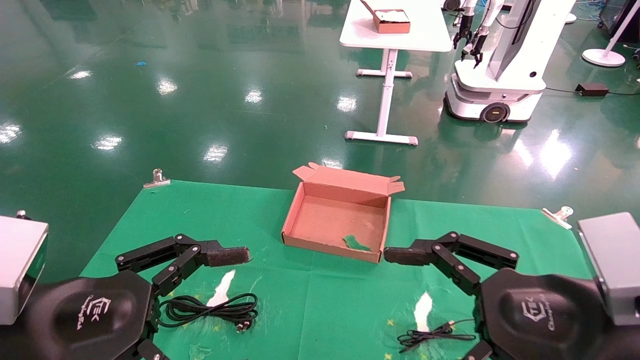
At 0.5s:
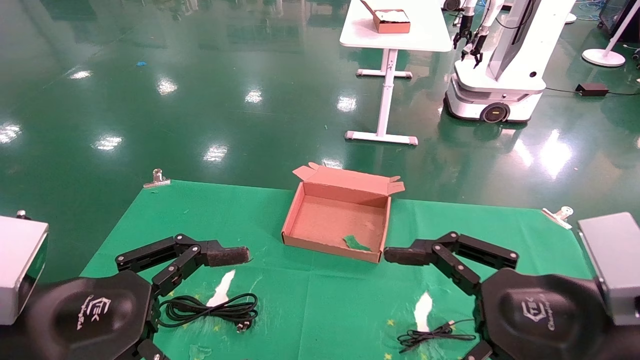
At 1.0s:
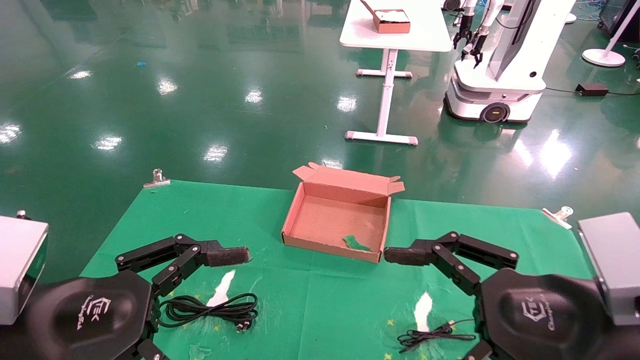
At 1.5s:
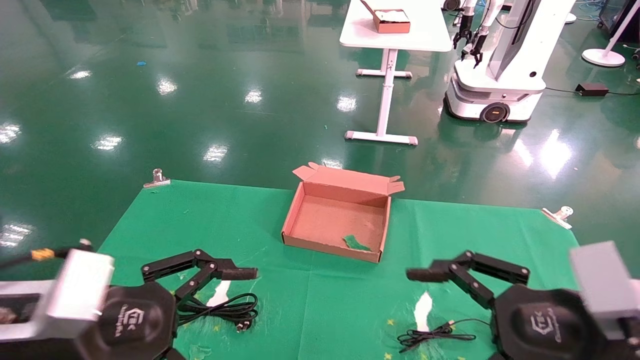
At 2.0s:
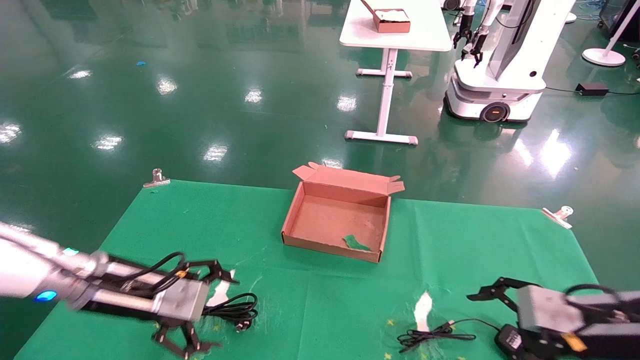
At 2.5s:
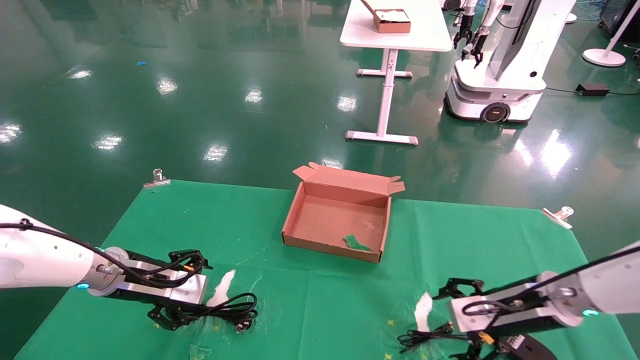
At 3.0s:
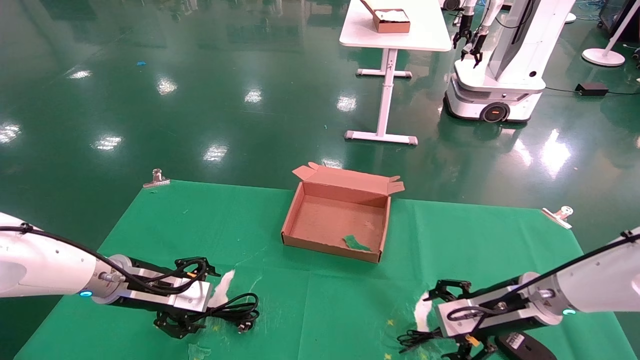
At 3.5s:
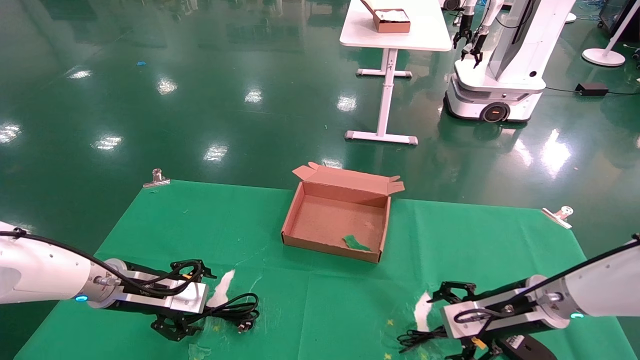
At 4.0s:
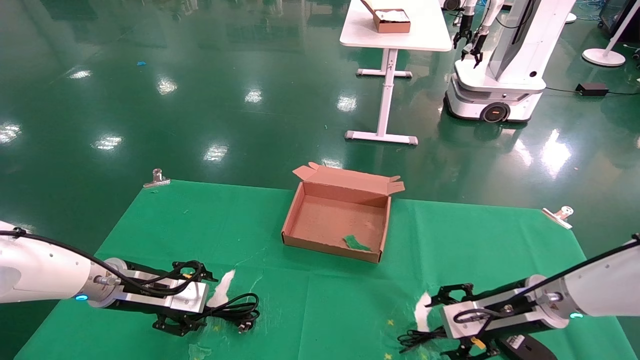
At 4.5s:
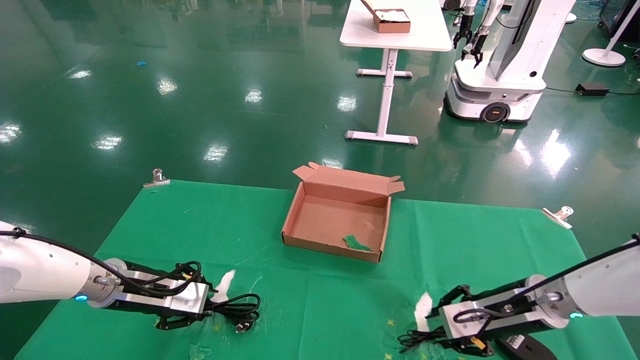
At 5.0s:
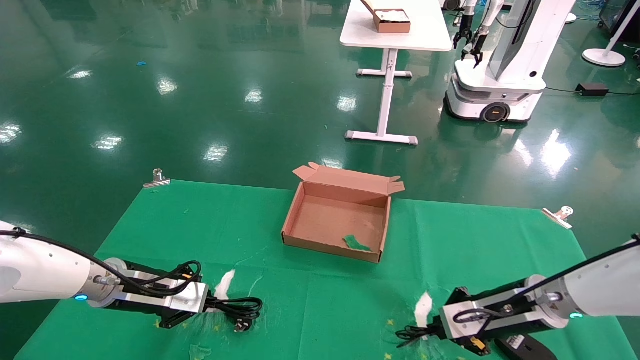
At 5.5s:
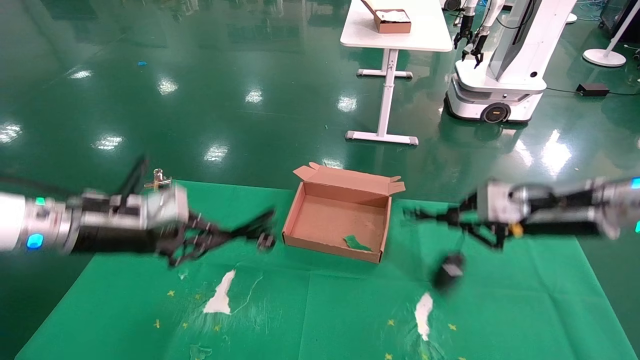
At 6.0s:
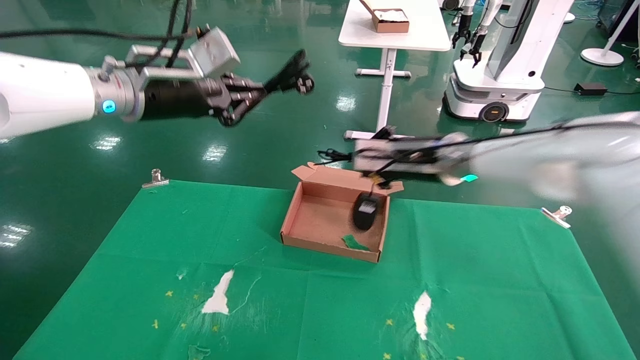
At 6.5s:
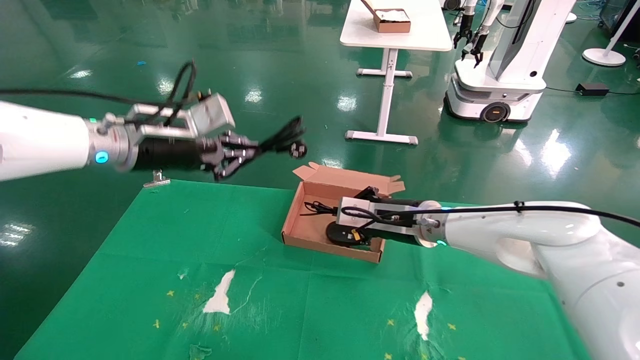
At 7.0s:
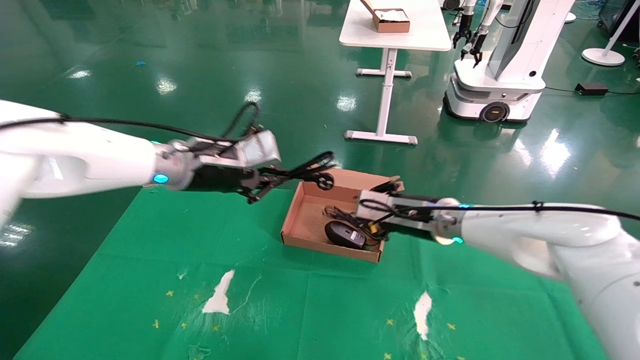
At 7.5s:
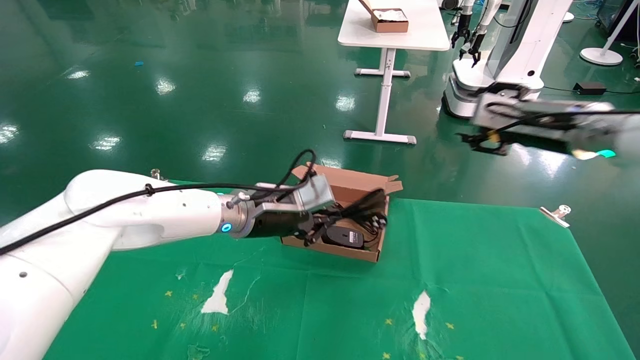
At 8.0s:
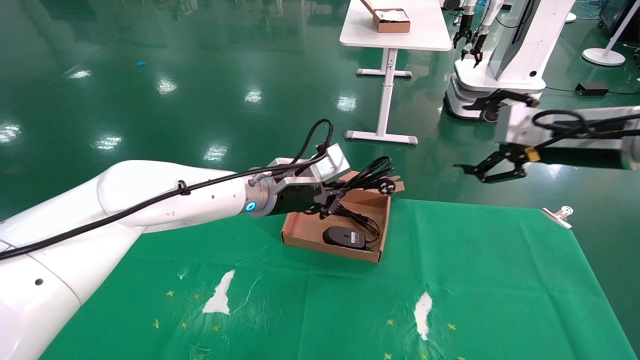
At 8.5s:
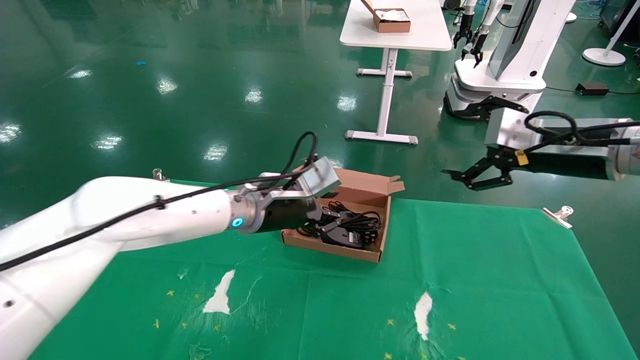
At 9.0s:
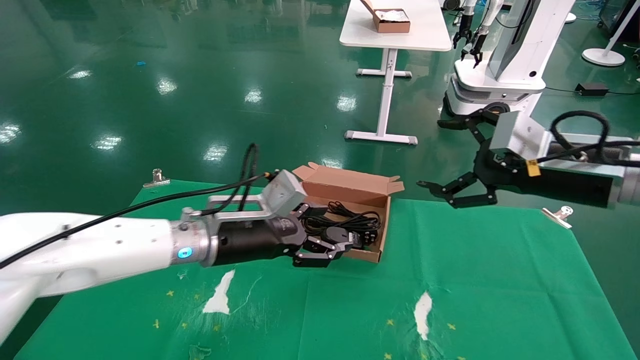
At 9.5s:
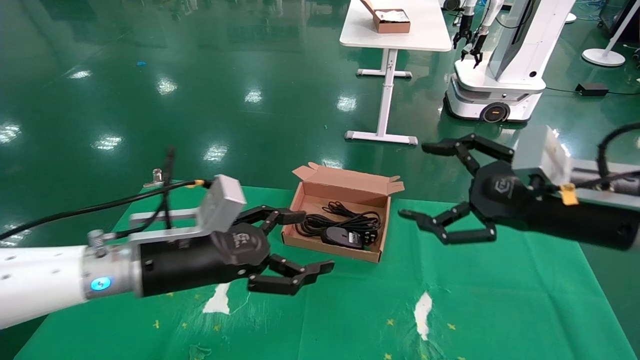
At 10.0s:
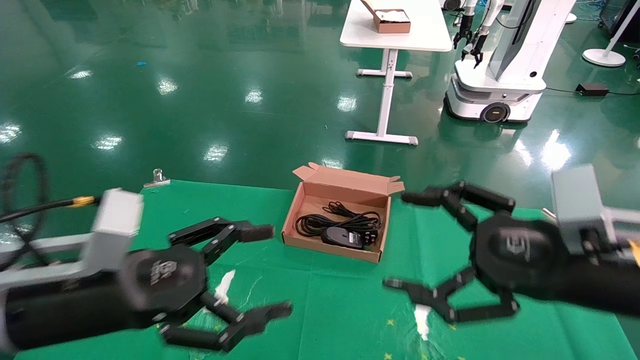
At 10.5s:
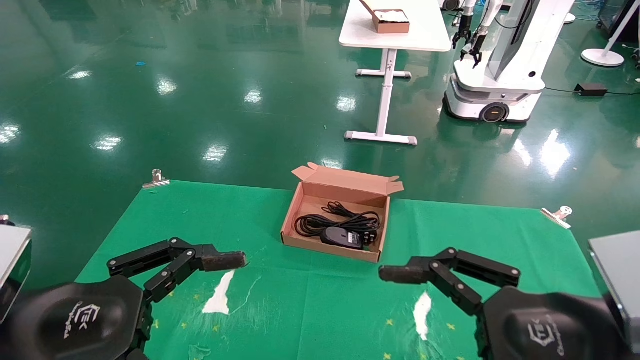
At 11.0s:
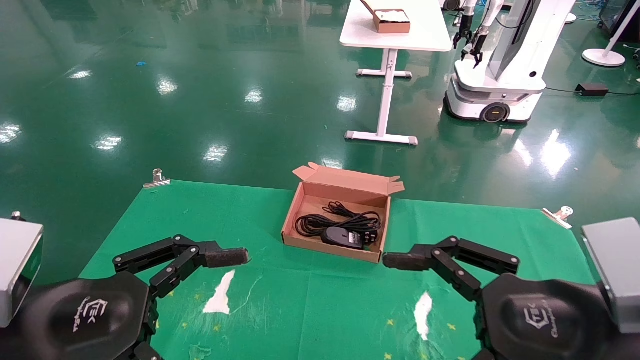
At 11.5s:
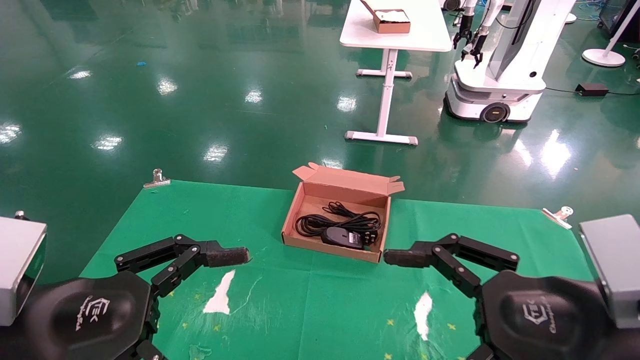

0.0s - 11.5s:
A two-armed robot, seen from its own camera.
Step, 2.0s - 5.0s: Grab and lift both the mouse and power cord from the accessory packaging area at the same time.
Step, 5.5s - 9.0s: Place the mouse and power cord into the box.
0.0s - 2.0s: The right gripper heads forward, to the right and downward, covering approximately 15 cm, while the left gripper shifts roughly 20 cm forward.
2.0s - 4.0s: The right gripper is displaced forward by about 10 cm. The left gripper heads forward, covering roughly 5 cm.
4.0s - 6.0s: The left gripper goes approximately 25 cm upward, and closes its fingers; the right gripper goes approximately 20 cm upward and to the left, and closes its fingers.
6.0s - 7.5s: The left gripper heads downward and to the right, covering roughly 20 cm, while the right gripper travels to the right by approximately 15 cm, and opens its fingers.
7.5s - 9.5s: The left gripper travels backward and to the left by about 15 cm, and opens up. Meanwhile the right gripper heads backward and downward, covering roughly 15 cm, and opens its fingers.
9.5s - 11.5s: The left gripper shifts about 15 cm backward and to the left. Meanwhile the right gripper shifts about 10 cm backward.

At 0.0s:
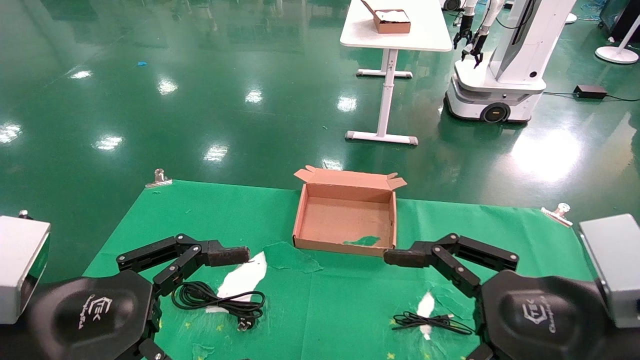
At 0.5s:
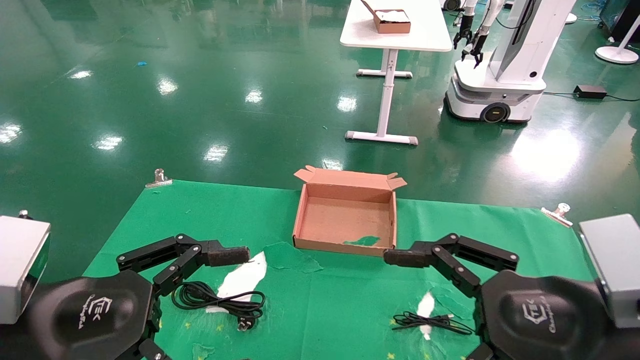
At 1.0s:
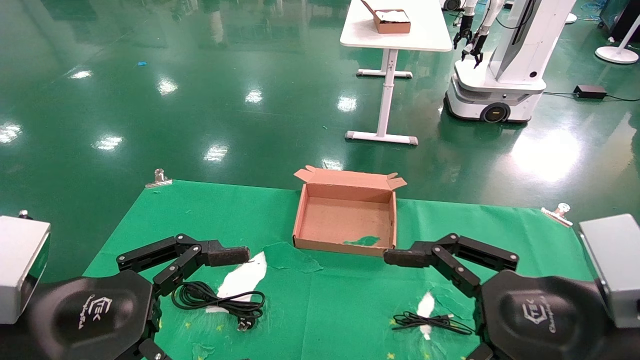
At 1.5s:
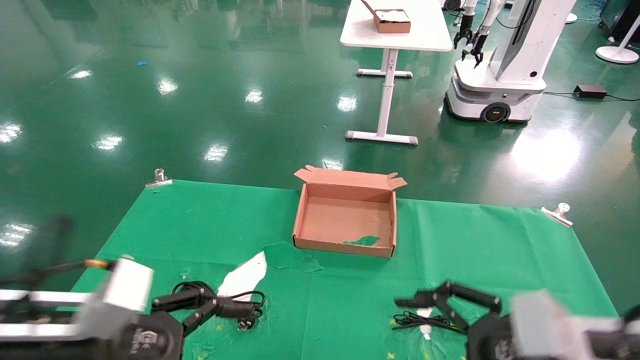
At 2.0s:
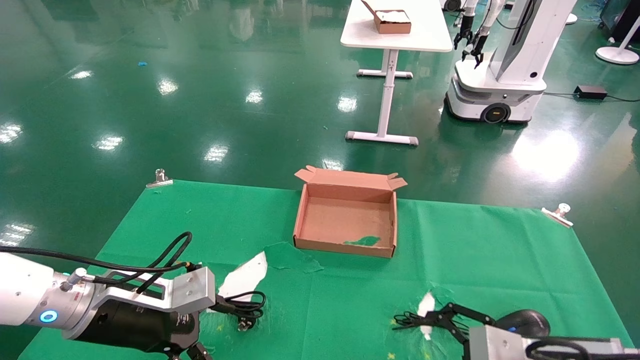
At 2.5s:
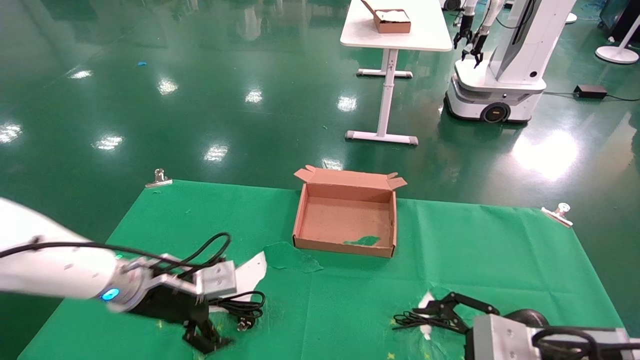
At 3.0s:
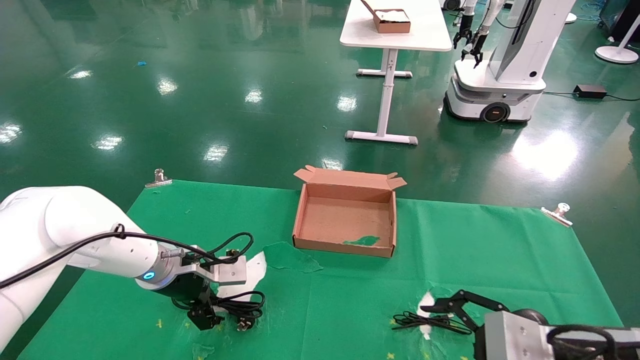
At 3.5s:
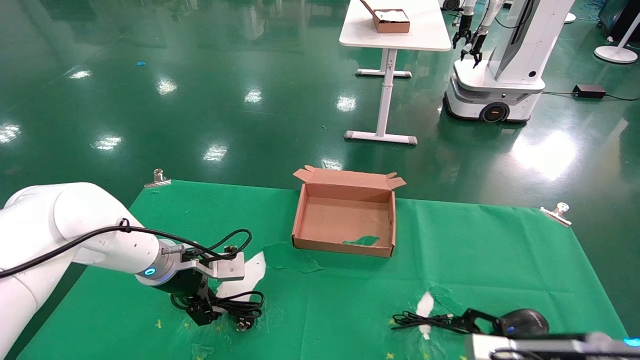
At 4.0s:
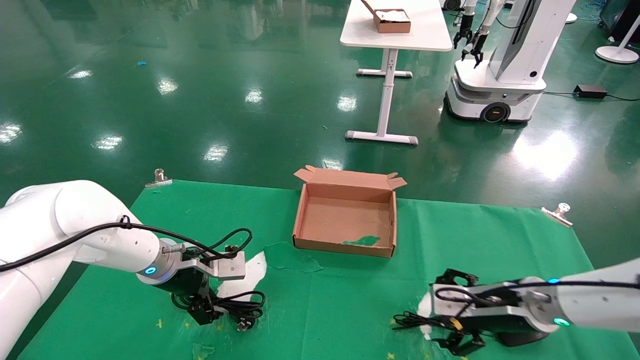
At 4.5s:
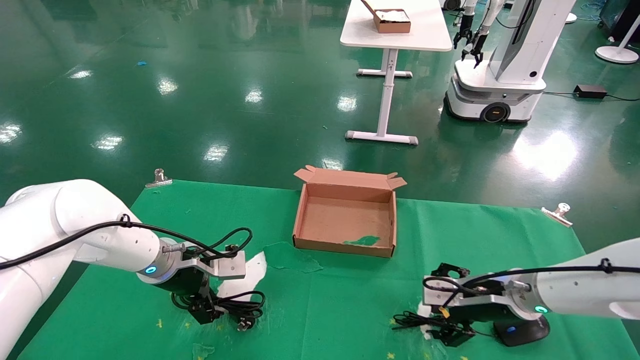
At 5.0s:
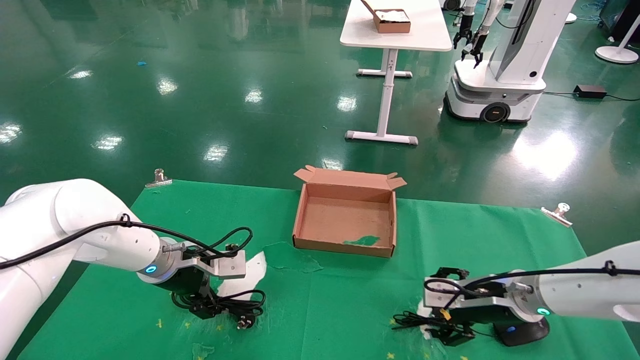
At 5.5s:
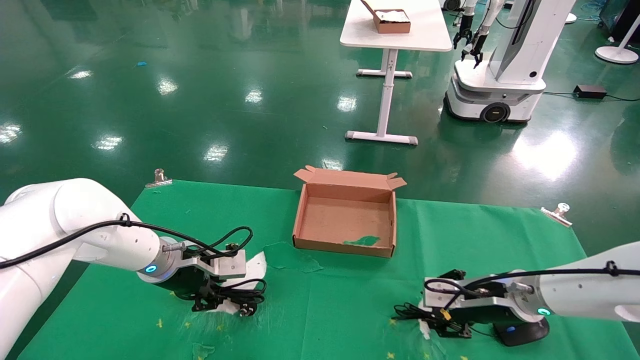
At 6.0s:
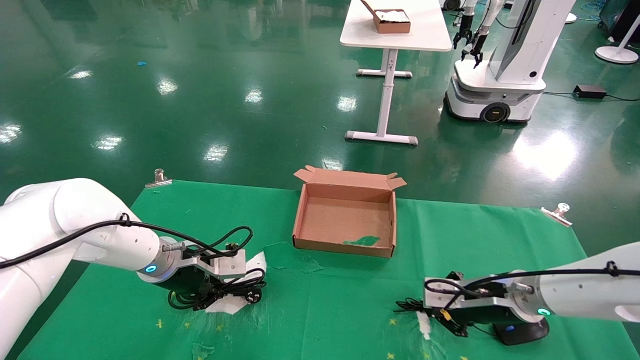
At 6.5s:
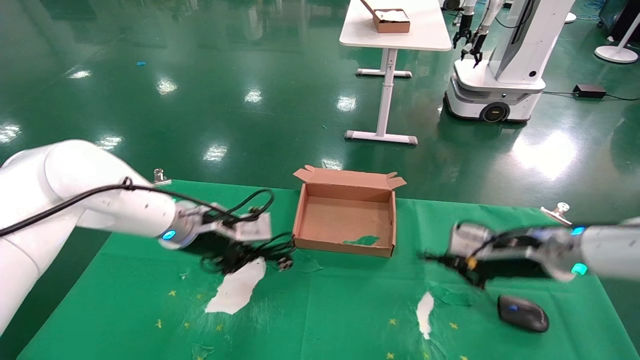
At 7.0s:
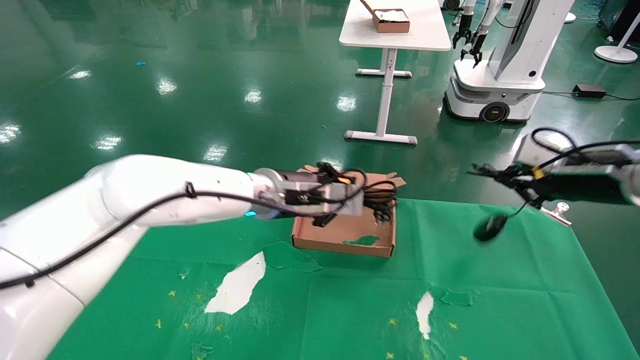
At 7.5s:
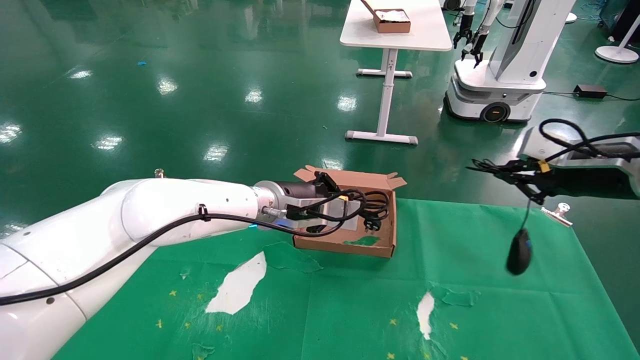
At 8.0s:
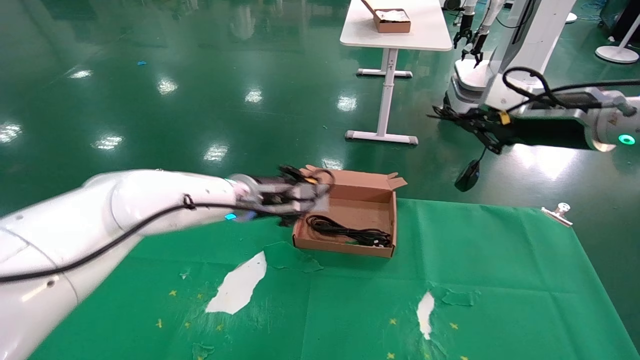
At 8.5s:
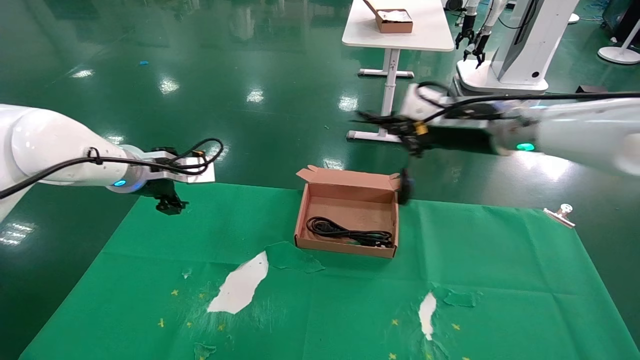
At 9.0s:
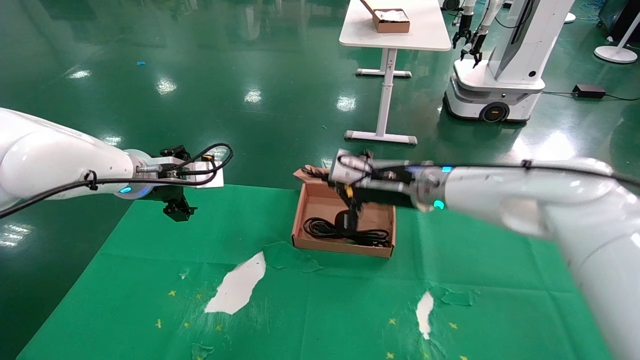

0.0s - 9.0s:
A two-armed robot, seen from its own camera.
Step, 2.5s - 6.5s: Grab and lift both the mouse and power cord from the accessory packaging area at the same time.
0.0s - 2.0s: The left gripper heads forward and downward, covering roughly 15 cm, while the right gripper moves downward and forward, about 10 cm.
2.0s - 4.5s: The grippers both shift forward by some 15 cm.
4.5s - 7.0s: The right gripper heads upward and to the right, covering about 20 cm, and closes its fingers; the left gripper is displaced to the right and upward by roughly 20 cm, and closes.
7.0s - 9.0s: The grippers both shift to the left by about 20 cm. The left gripper opens up.
